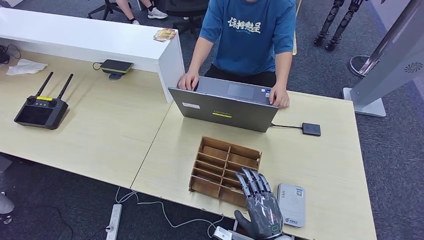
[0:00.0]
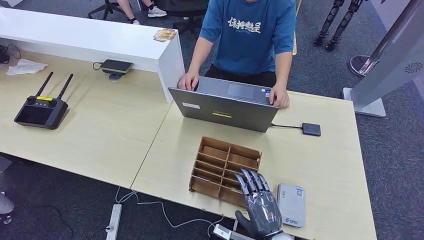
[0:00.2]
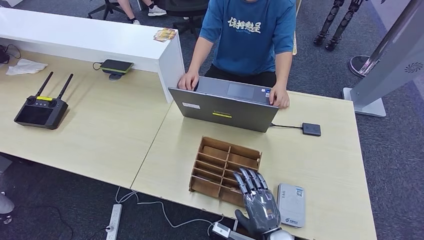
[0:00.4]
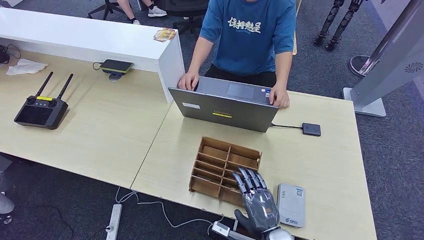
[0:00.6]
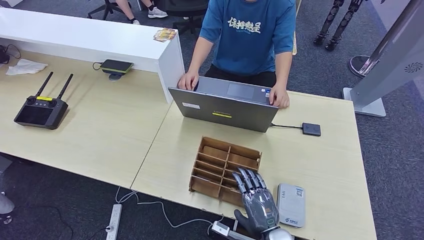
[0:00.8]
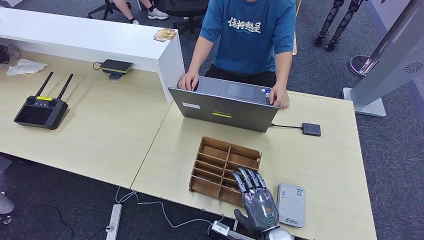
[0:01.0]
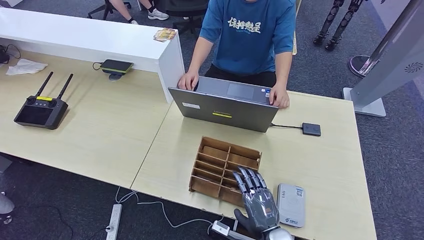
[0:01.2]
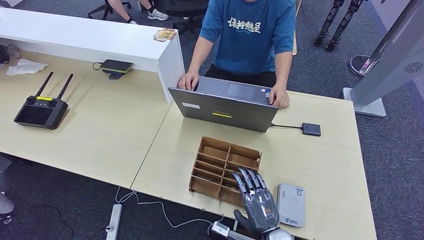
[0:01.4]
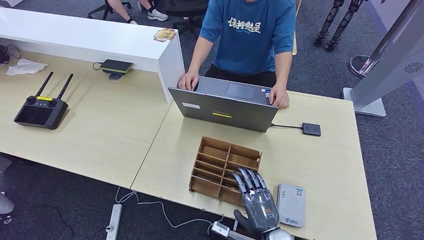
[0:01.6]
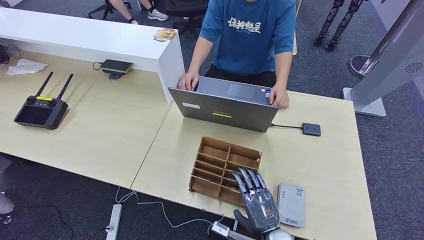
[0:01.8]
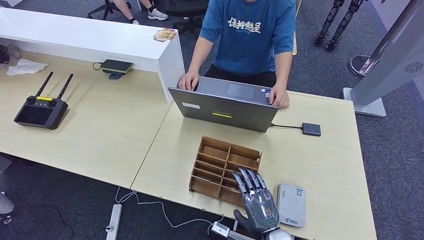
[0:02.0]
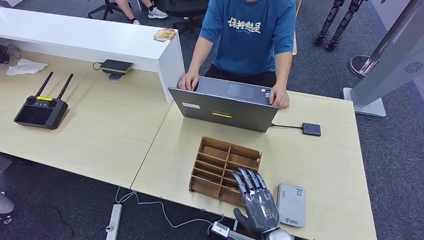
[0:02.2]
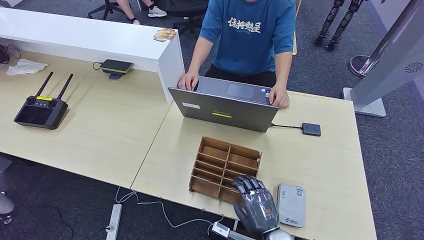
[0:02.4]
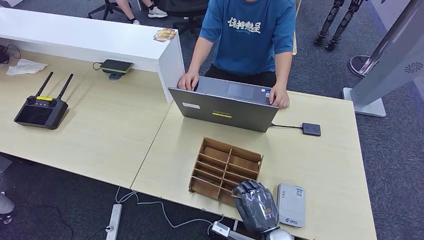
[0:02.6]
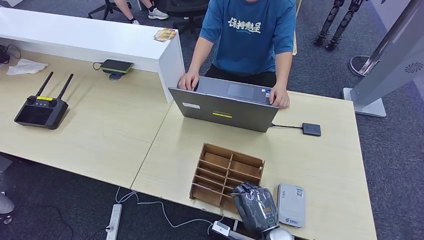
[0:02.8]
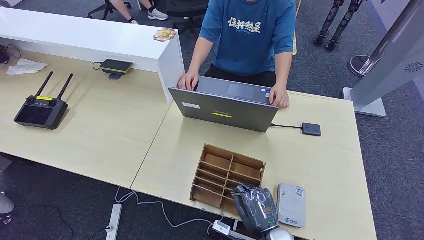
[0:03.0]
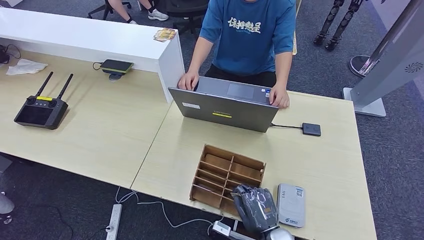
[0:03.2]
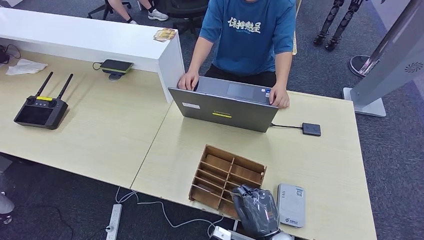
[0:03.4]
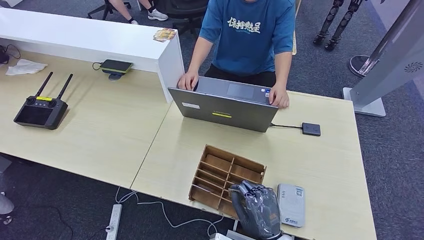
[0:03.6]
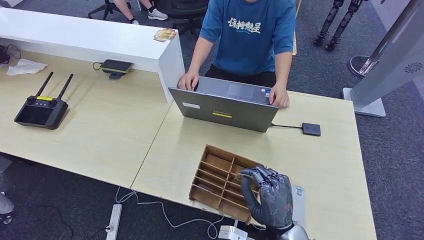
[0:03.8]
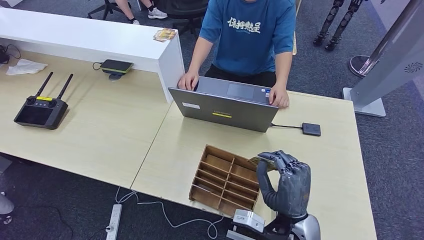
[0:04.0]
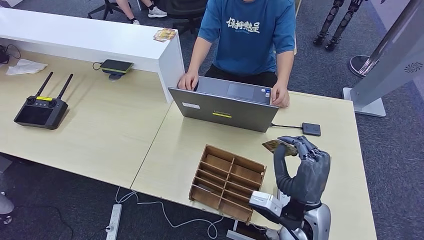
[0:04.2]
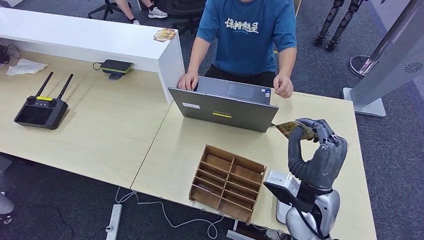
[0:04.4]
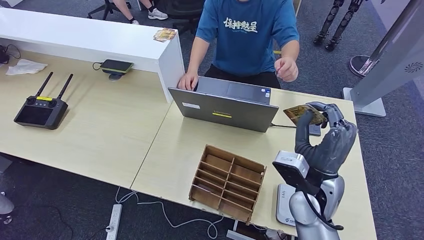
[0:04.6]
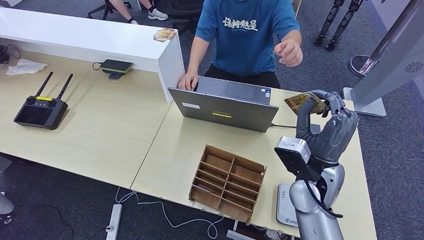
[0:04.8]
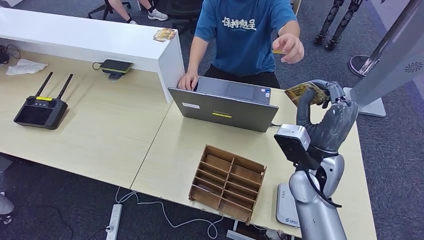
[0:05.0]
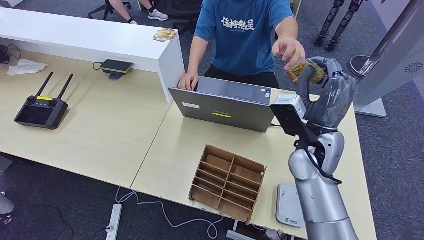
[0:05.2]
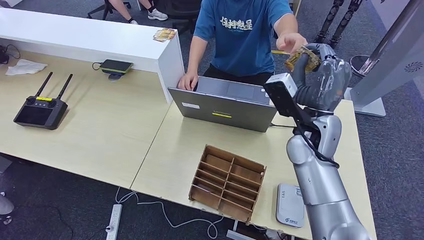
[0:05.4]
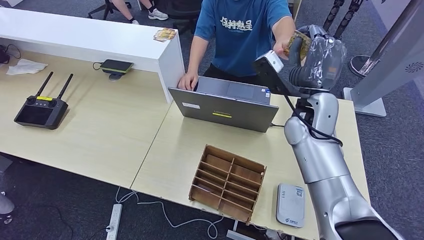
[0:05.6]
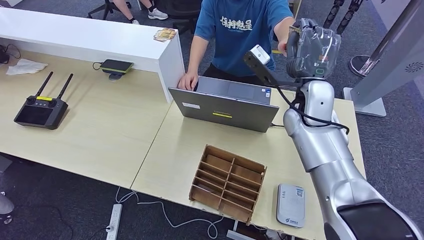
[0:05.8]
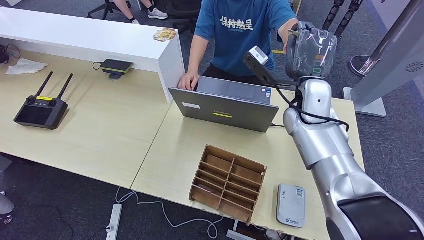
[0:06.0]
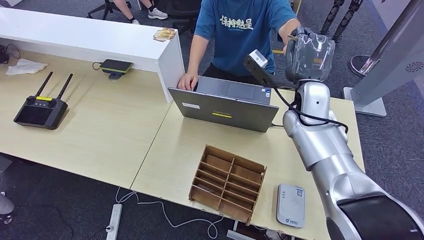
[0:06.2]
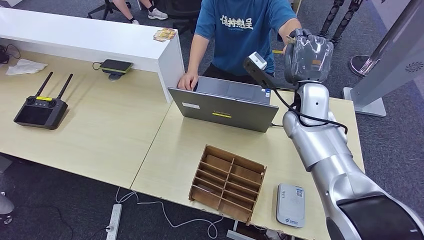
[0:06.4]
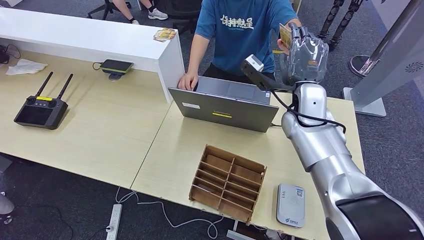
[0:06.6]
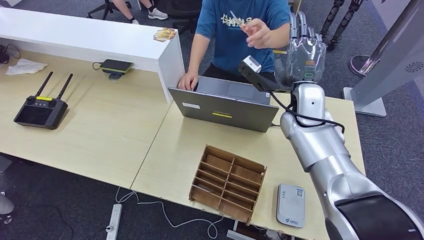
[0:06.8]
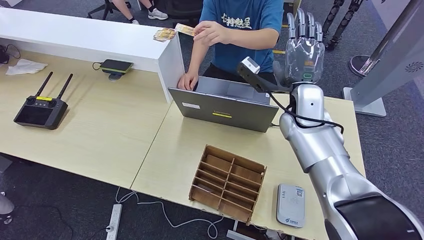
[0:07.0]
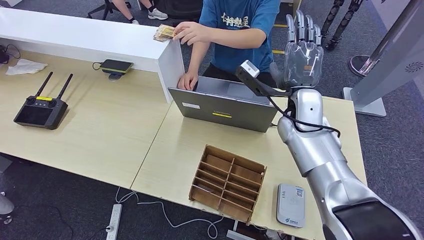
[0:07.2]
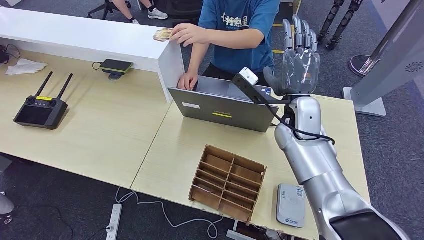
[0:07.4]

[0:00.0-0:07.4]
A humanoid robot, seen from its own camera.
Step, 0:02.6 to 0:04.2: Pick up the room key from the key card box.
Step, 0:04.4 to 0:07.4: Hand the room key to the person.
0:00.0 to 0:01.4: The hands move only a little.
0:01.4 to 0:03.0: The two hands keep their place.
0:03.0 to 0:04.4: The right hand moves upward and forward, some 15 cm.
0:04.4 to 0:06.0: The left hand ends up about 5 cm from where it was. The right hand moves forward and upward, some 20 cm.
0:06.0 to 0:07.4: The hands stay close to where they were, moving slightly.
